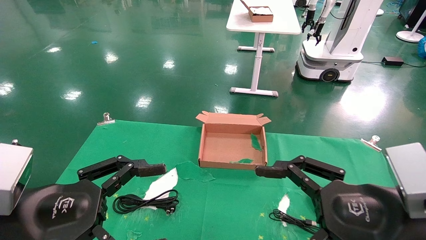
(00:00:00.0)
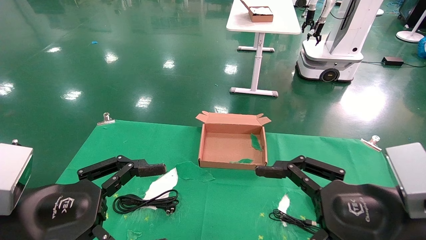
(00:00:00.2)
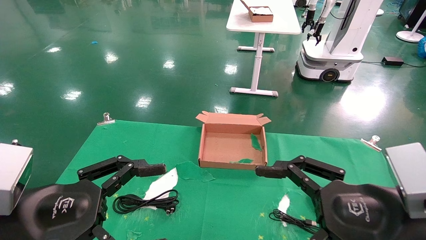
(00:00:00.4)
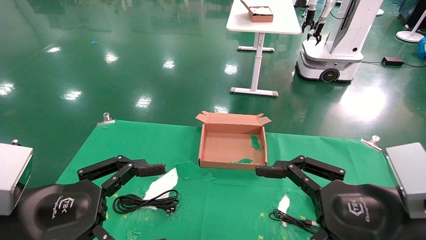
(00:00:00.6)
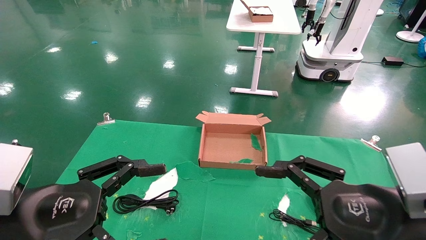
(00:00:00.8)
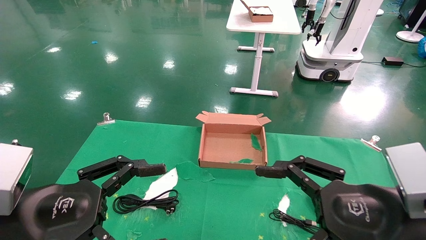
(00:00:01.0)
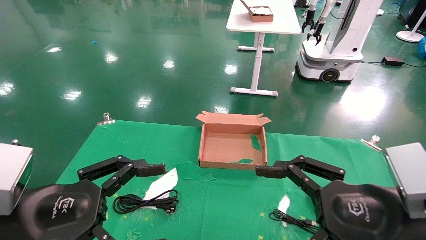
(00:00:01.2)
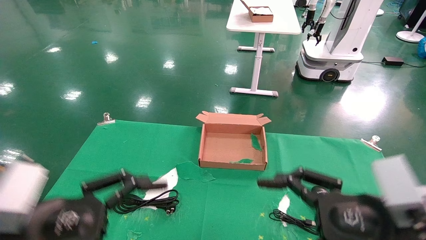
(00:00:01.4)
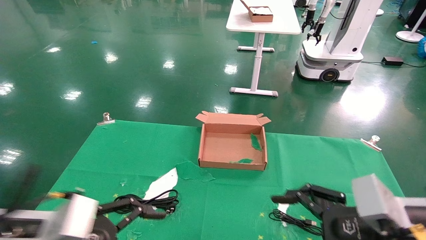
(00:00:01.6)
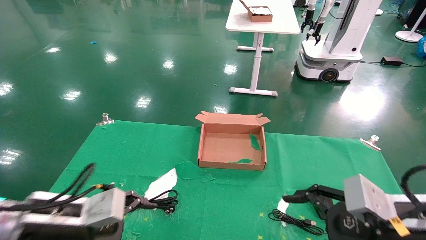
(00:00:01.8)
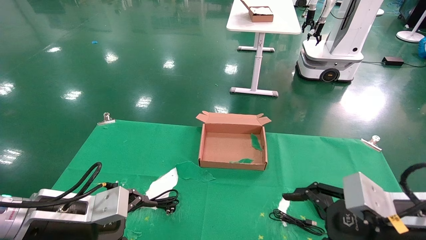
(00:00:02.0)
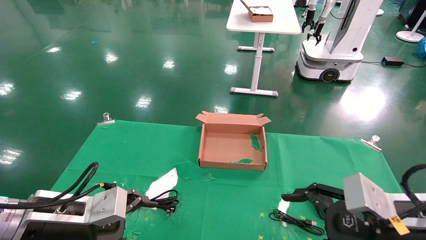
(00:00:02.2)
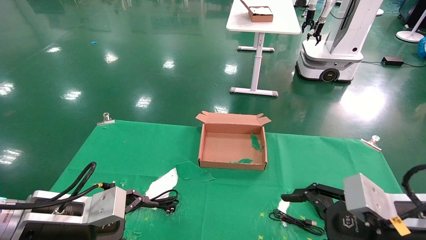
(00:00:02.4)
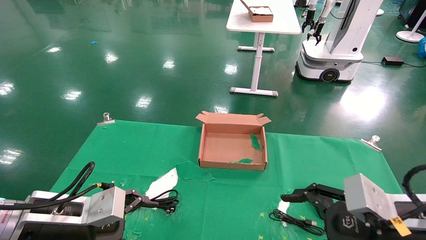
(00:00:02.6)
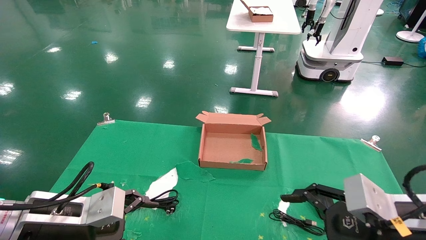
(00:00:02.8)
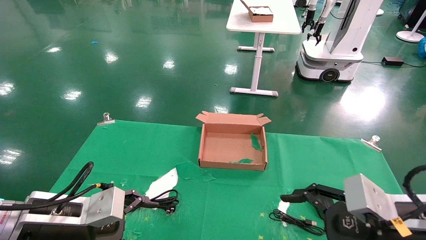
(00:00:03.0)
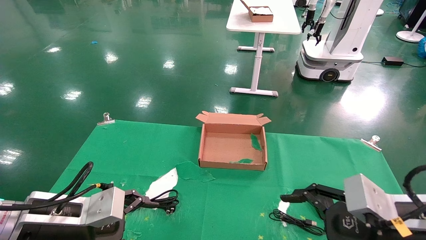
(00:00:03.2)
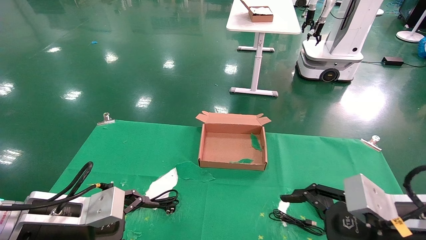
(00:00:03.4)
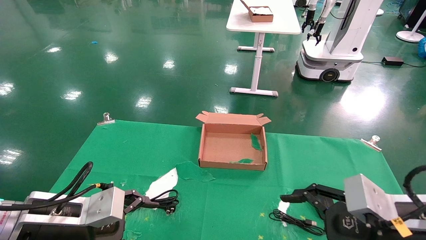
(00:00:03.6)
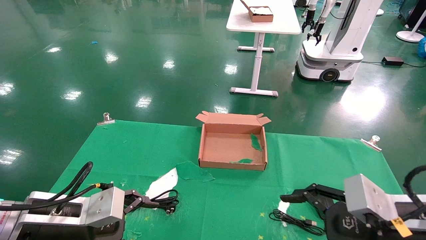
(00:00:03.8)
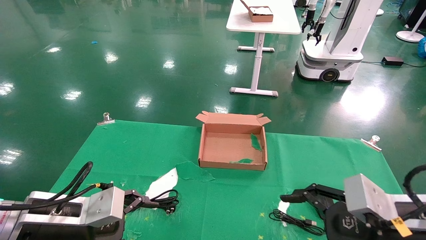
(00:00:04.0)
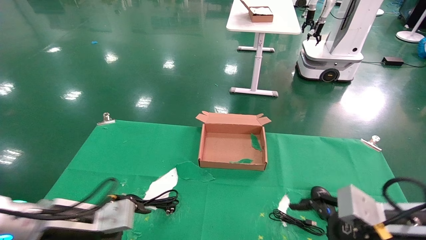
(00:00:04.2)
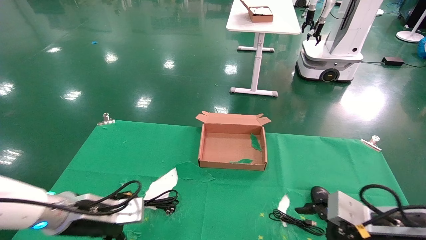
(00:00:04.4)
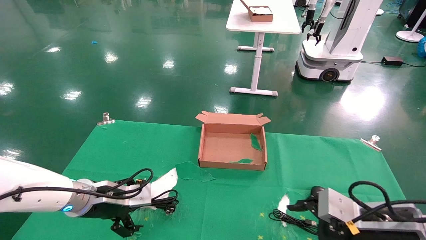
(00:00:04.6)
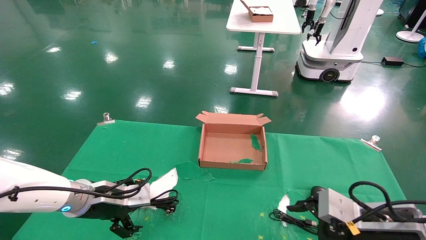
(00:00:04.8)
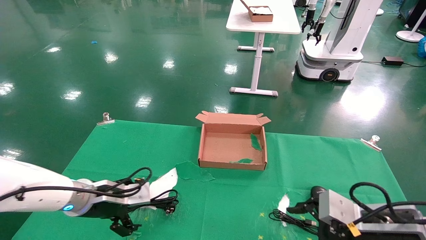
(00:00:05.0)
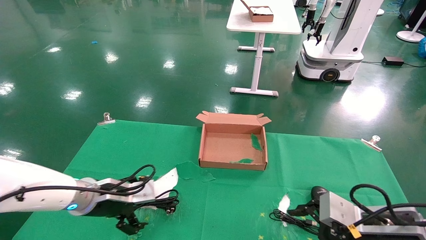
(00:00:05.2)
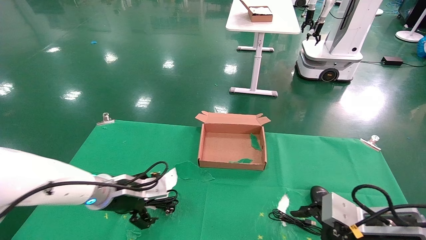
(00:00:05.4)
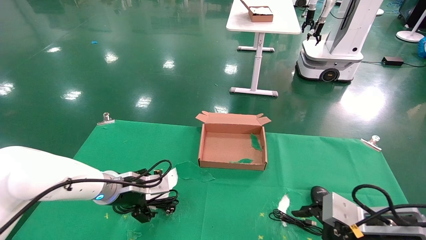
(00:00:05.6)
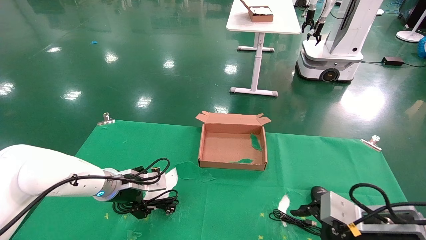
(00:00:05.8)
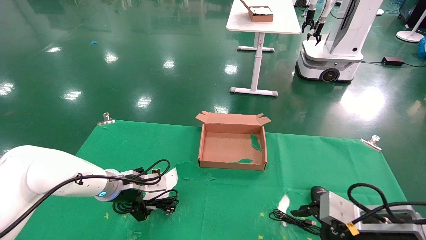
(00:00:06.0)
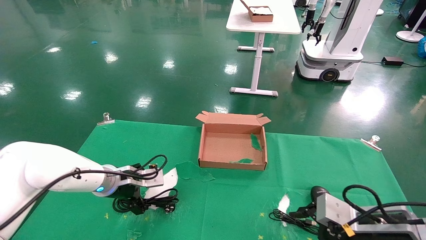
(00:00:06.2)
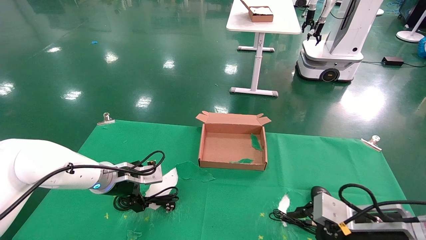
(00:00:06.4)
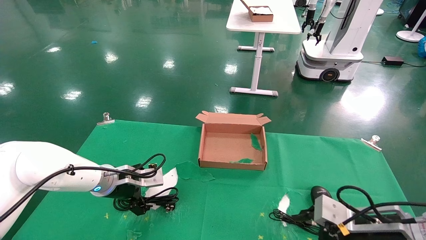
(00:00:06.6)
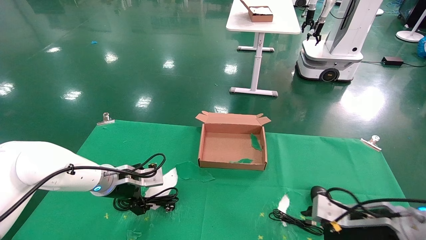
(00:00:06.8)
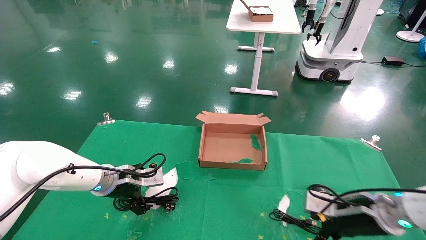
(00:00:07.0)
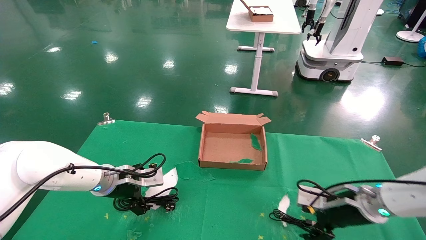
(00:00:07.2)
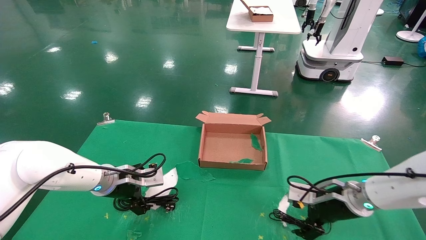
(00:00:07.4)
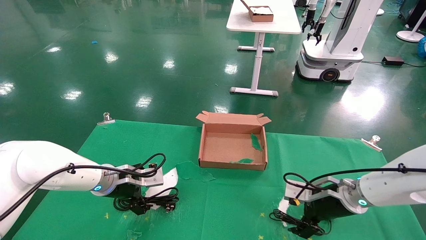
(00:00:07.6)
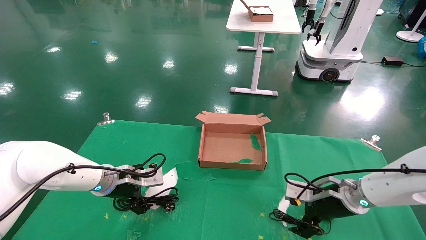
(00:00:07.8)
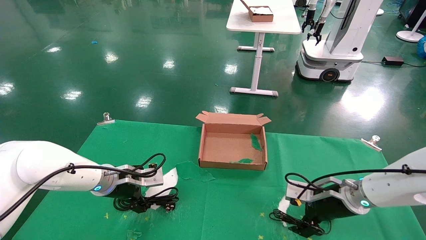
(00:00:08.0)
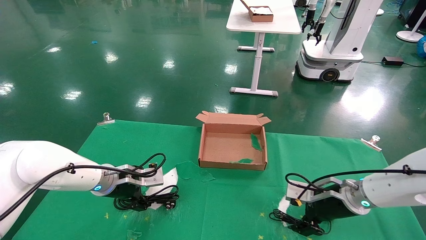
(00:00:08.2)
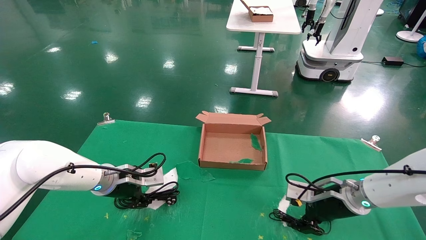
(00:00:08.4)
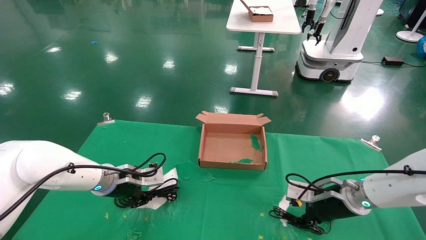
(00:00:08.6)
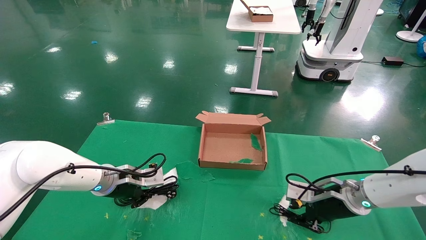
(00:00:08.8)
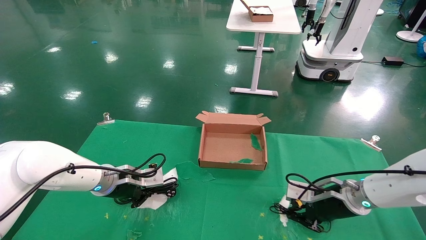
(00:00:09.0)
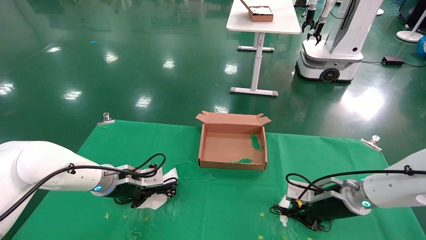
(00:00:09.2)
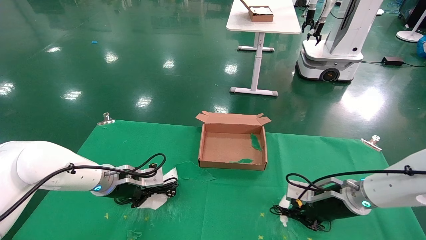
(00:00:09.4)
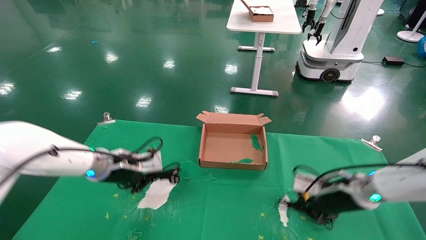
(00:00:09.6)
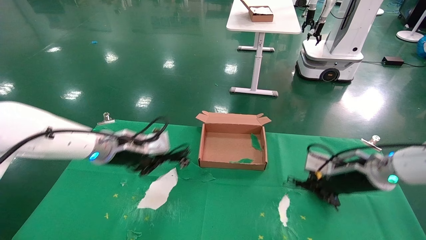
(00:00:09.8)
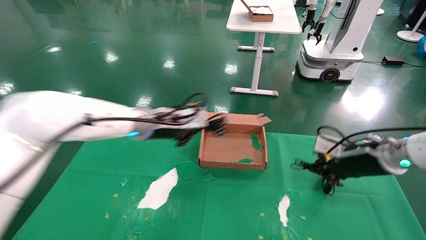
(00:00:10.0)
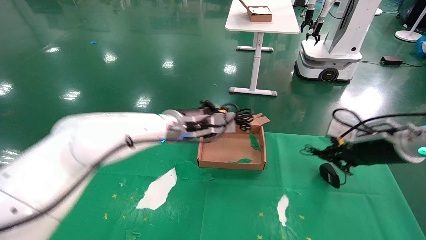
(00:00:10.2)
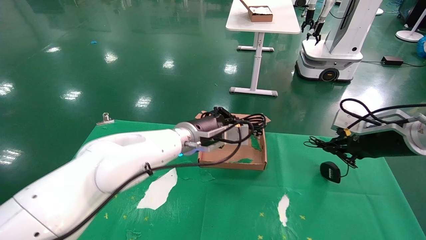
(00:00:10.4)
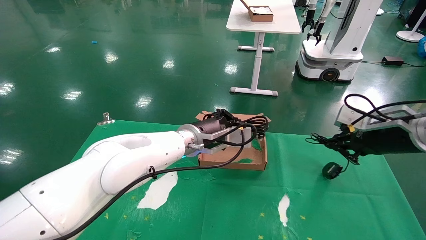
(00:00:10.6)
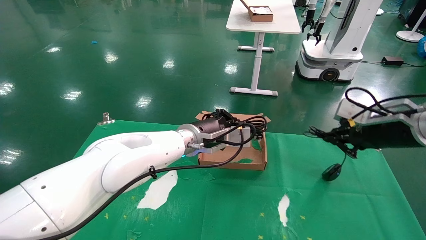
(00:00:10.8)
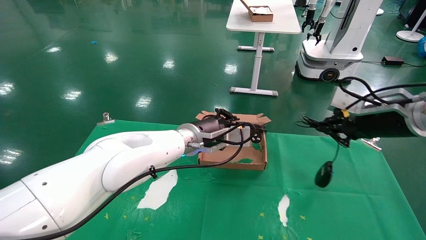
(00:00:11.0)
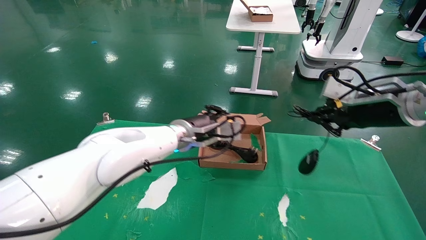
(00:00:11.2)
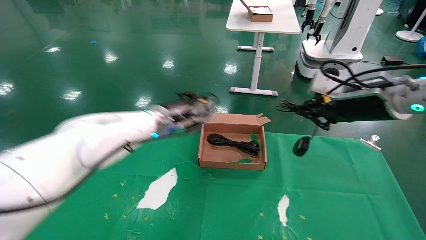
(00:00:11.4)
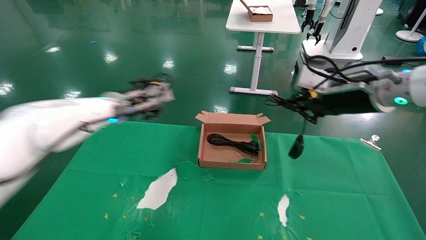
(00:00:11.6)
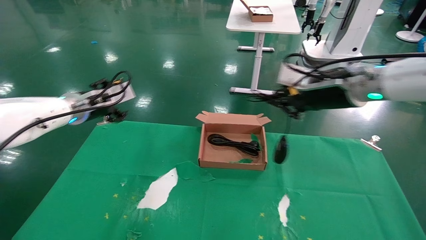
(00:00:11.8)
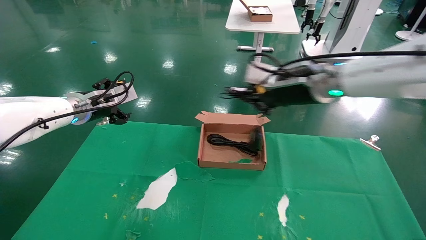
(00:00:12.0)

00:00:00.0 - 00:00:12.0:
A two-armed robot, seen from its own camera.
Step, 00:00:01.4 - 00:00:06.6: Grab and lift both the mouse and power cord from the accessory packaging area at the same time.
00:00:00.0 - 00:00:01.6: The left gripper shifts by roughly 5 cm.
00:00:01.6 - 00:00:03.0: The grippers make only small movements.
00:00:03.0 - 00:00:04.4: The left gripper heads forward, covering some 5 cm. The right gripper ends up roughly 5 cm from where it was.
00:00:04.4 - 00:00:06.0: The left gripper goes approximately 10 cm forward.
00:00:06.0 - 00:00:07.6: The right gripper is displaced forward by approximately 15 cm.
00:00:07.6 - 00:00:09.0: The left gripper closes up. The right gripper closes up.
00:00:09.0 - 00:00:10.4: The right gripper moves upward and to the right, some 15 cm; the left gripper shifts about 20 cm to the right and upward.
00:00:10.4 - 00:00:12.0: The left gripper moves to the left, some 25 cm, and opens. The right gripper heads to the left and upward, covering roughly 20 cm.

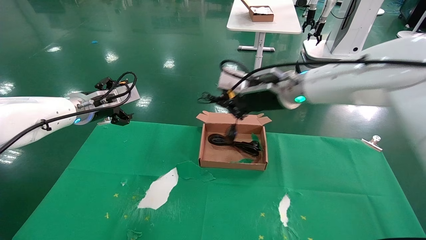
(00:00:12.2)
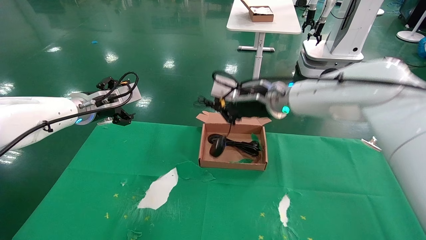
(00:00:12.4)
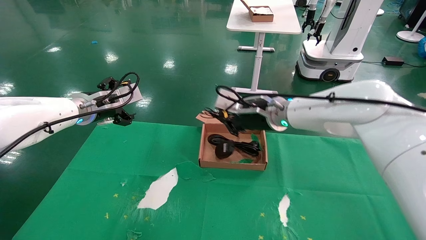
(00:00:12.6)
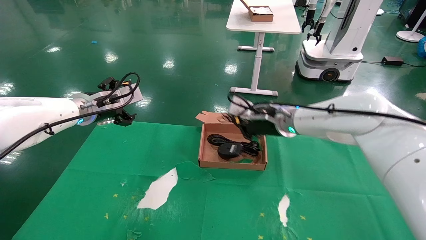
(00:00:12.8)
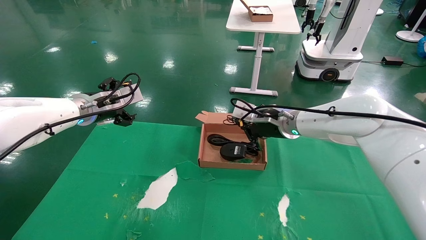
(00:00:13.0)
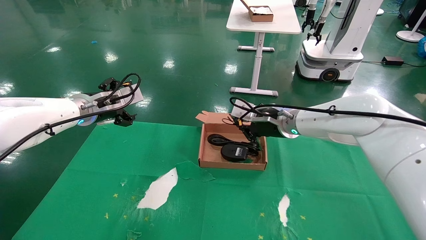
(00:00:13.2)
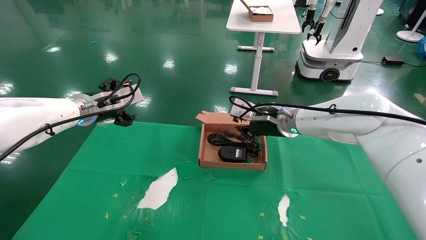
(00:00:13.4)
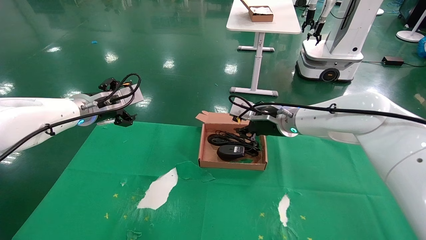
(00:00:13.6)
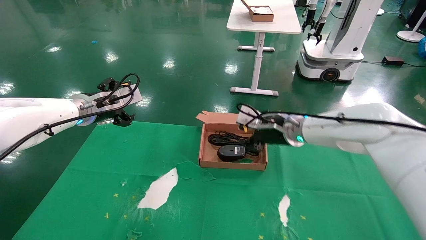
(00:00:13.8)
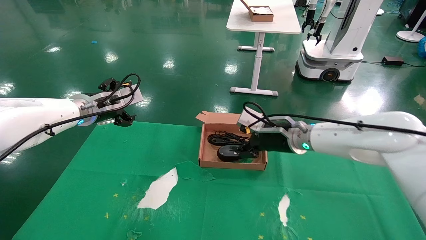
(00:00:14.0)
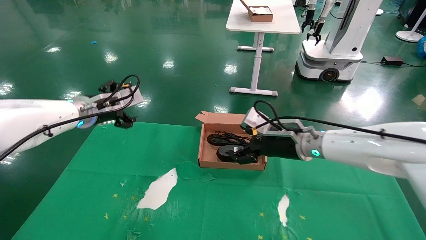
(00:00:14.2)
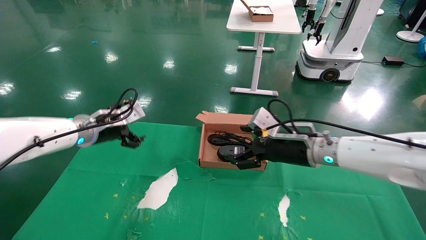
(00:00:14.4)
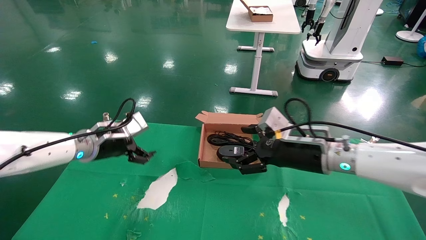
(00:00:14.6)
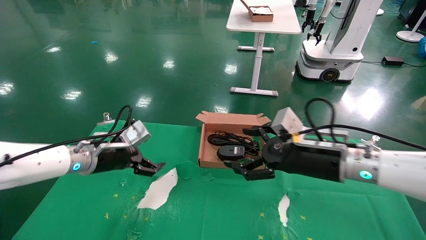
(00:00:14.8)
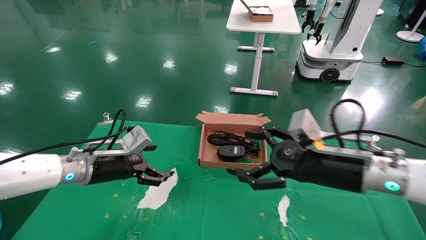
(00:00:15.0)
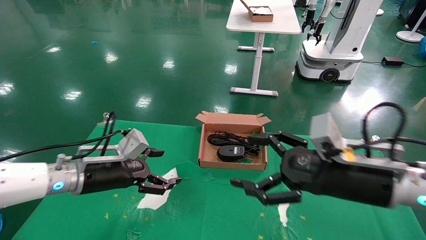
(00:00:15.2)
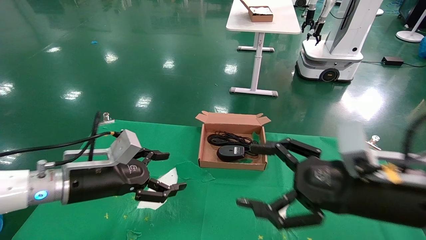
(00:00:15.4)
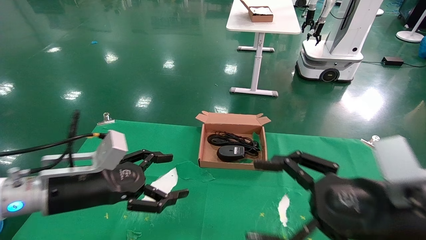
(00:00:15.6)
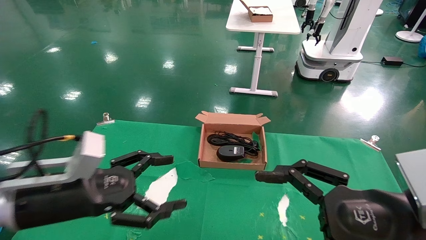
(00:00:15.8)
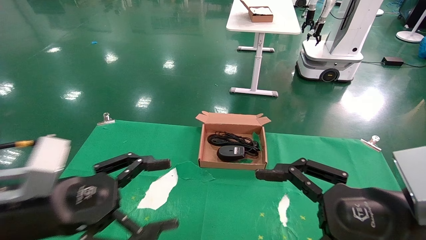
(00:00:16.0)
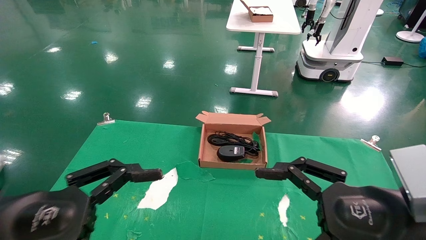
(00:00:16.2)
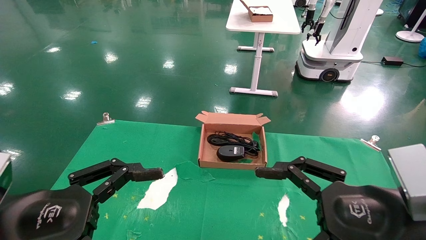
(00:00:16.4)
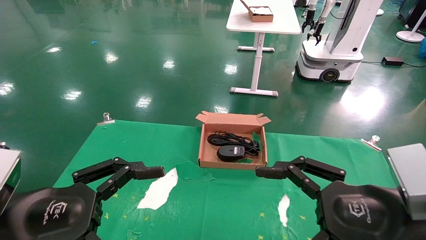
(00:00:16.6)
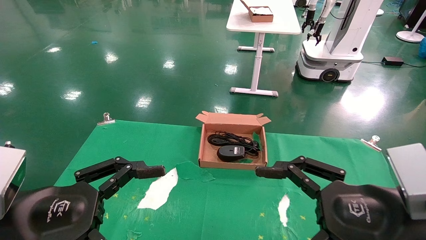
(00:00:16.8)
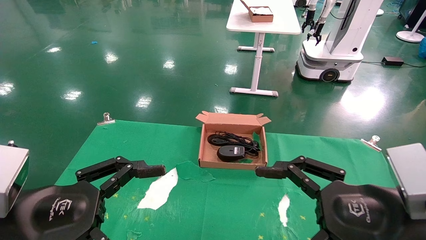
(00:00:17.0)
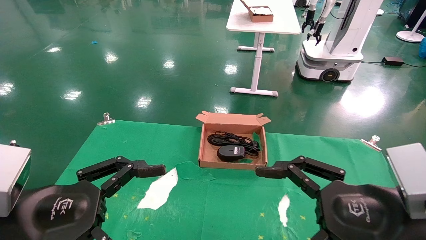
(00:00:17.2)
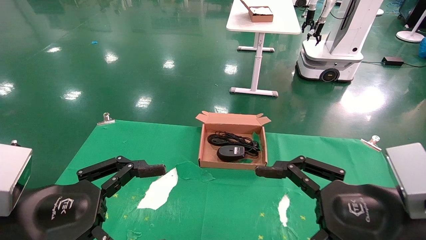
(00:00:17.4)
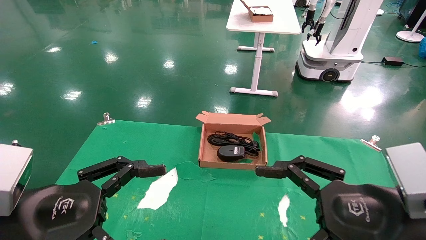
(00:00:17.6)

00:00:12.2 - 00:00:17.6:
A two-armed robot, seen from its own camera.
00:00:12.2 - 00:00:13.6: The right gripper is displaced downward by some 10 cm.
00:00:13.6 - 00:00:15.0: The right gripper is displaced backward and to the right by roughly 20 cm, and opens its fingers; the left gripper travels downward and backward by about 15 cm.
00:00:15.0 - 00:00:16.2: The right gripper moves backward, approximately 15 cm; the left gripper goes about 20 cm backward.
00:00:16.2 - 00:00:17.6: The two grippers keep their place.
